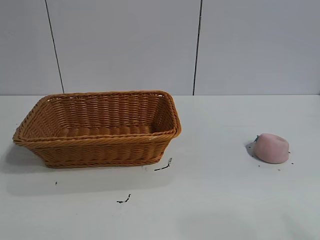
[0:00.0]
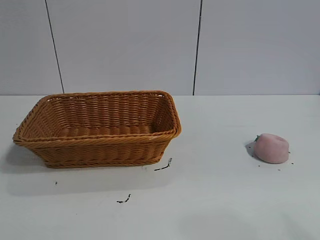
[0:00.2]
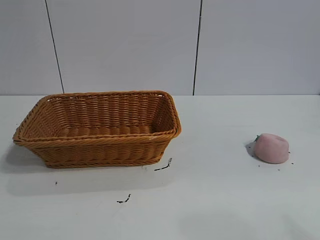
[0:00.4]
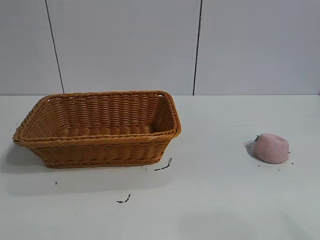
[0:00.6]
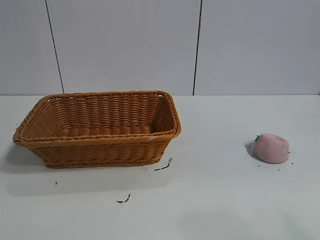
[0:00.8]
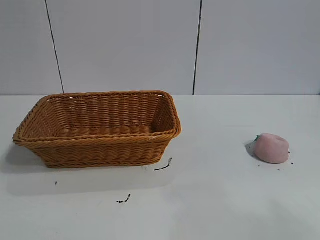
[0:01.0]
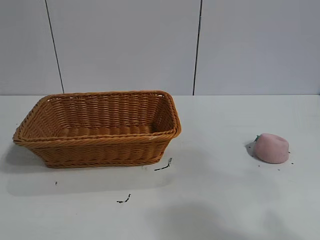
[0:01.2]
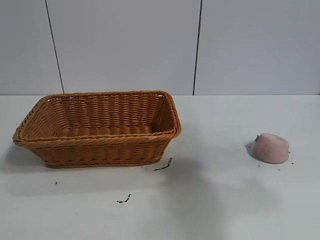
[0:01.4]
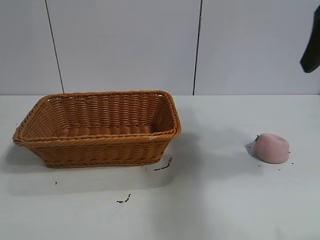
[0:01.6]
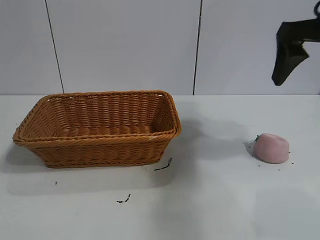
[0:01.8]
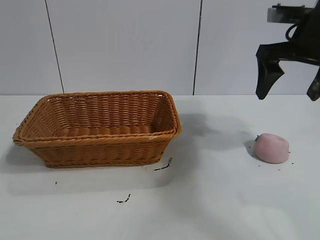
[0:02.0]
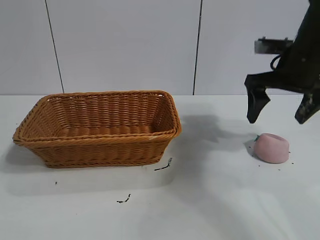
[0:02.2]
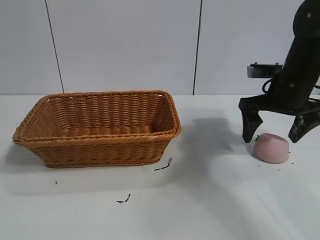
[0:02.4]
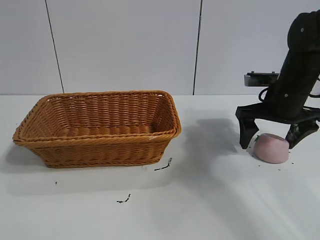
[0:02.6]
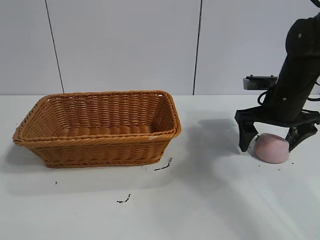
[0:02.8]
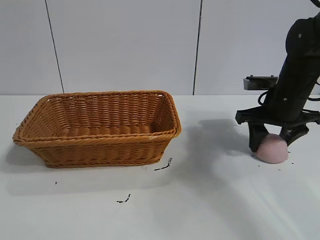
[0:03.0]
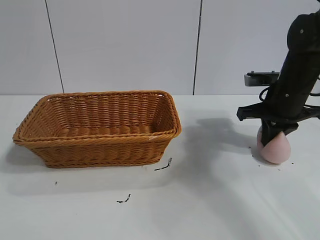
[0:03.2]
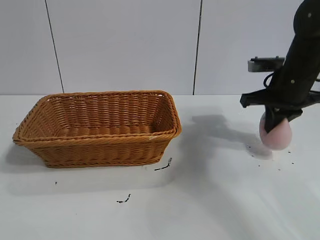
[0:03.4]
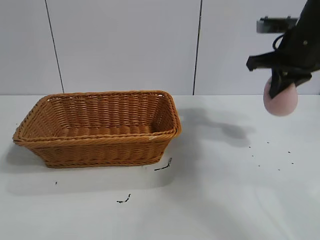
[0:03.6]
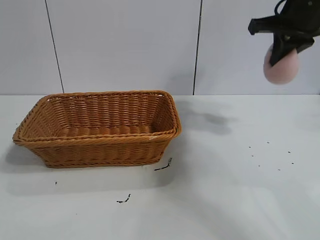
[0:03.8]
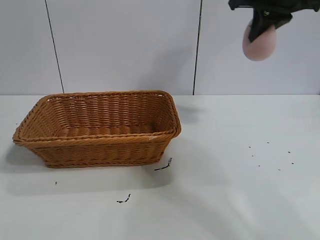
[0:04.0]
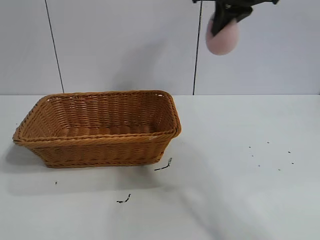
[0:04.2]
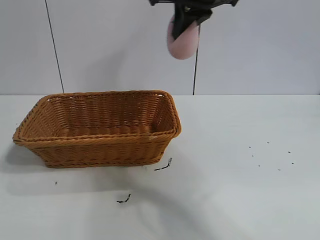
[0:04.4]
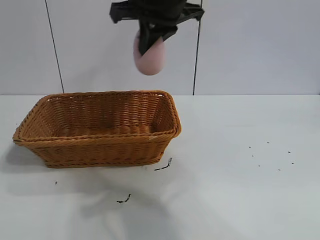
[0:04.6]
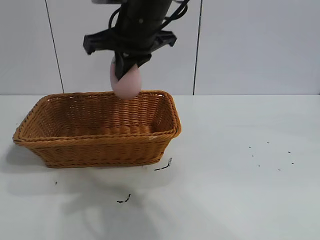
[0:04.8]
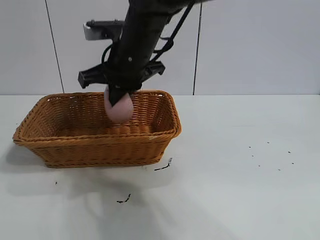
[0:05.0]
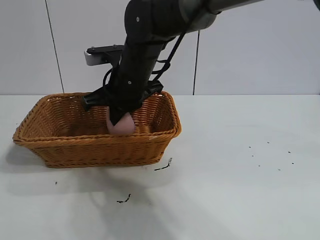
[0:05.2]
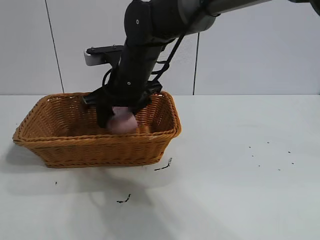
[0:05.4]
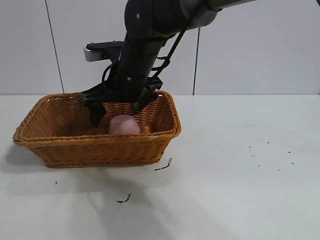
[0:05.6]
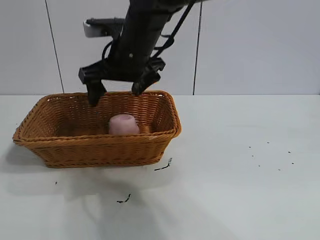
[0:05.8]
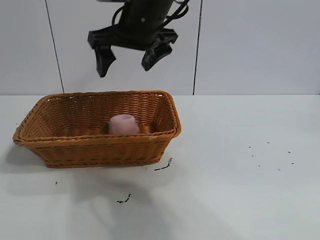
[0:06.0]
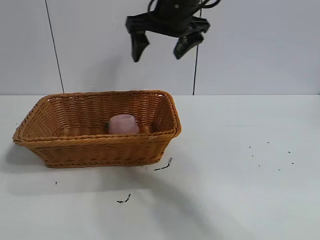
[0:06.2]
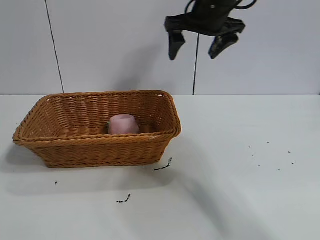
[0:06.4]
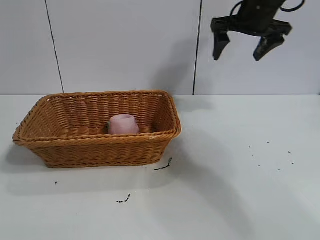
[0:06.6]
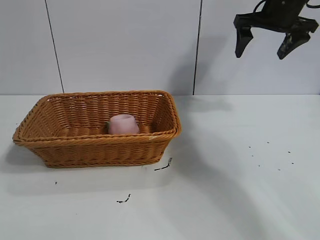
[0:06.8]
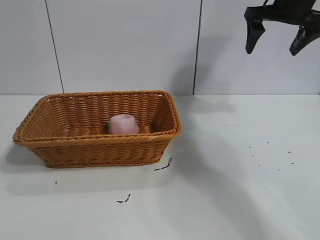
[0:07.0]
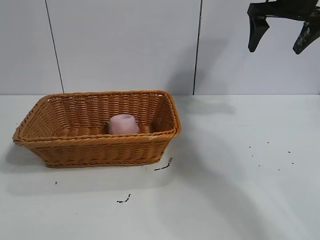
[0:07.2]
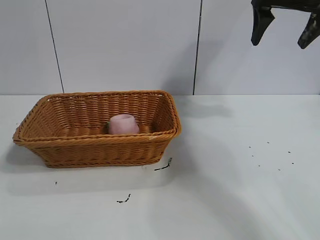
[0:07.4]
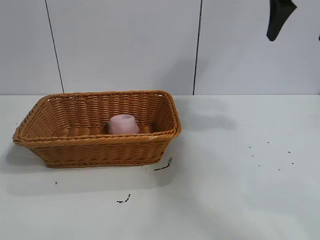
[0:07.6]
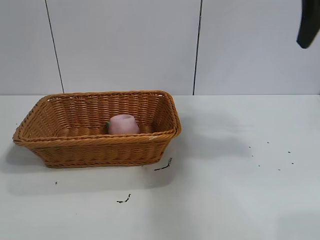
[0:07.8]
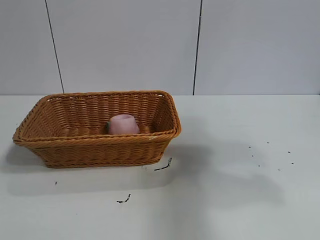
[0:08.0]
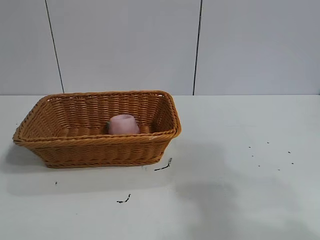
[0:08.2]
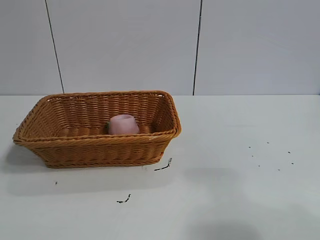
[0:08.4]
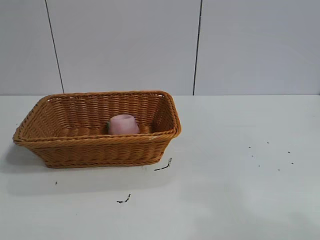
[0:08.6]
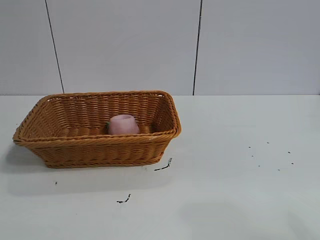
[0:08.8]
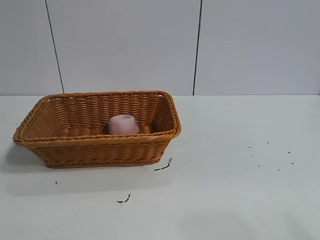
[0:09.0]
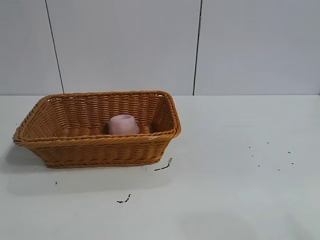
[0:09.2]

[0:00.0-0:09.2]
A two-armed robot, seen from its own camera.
Task of the whole recording: pick up the peach and put it into the basket.
Step, 0:00.8 to 0:03.0: Grasp the peach with right gripper.
Step, 0:03.4 to 0:05.4: Place the peach in the basket with right gripper.
